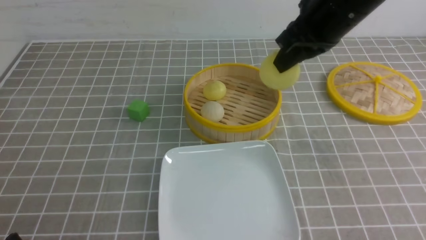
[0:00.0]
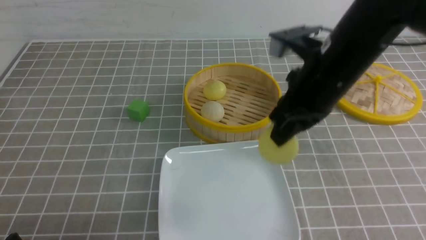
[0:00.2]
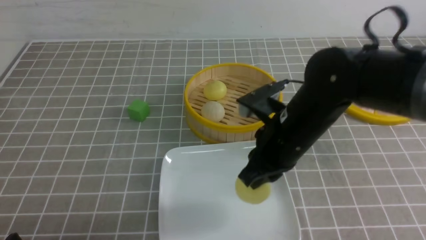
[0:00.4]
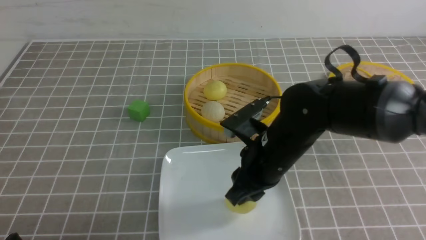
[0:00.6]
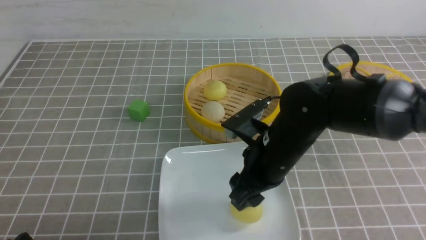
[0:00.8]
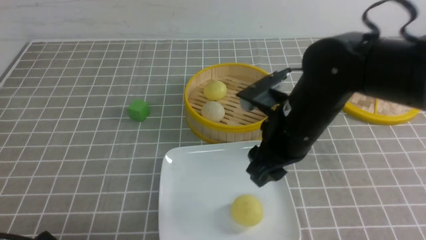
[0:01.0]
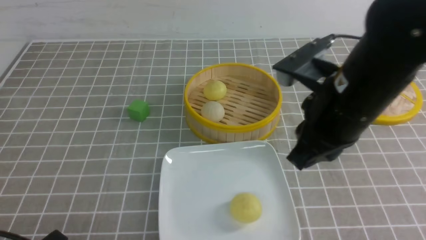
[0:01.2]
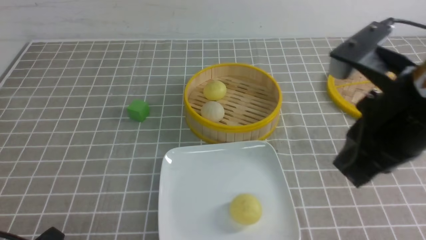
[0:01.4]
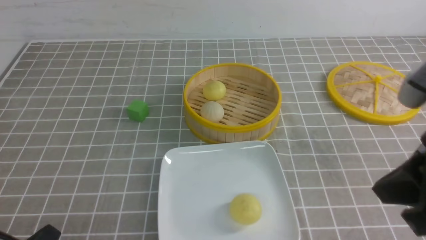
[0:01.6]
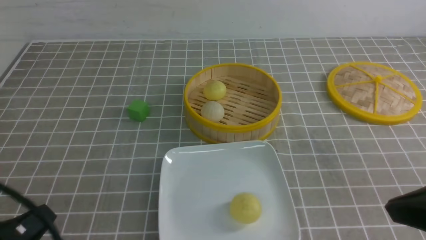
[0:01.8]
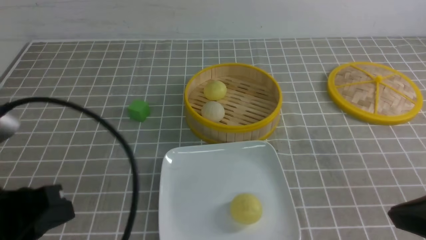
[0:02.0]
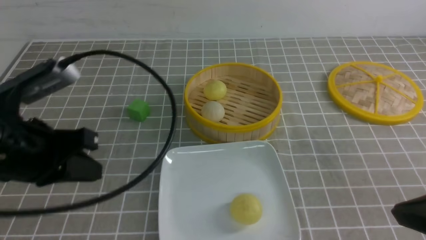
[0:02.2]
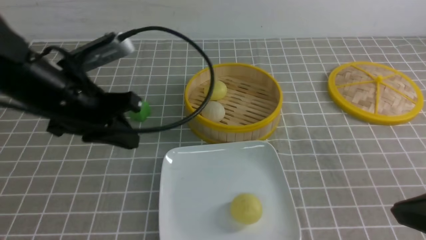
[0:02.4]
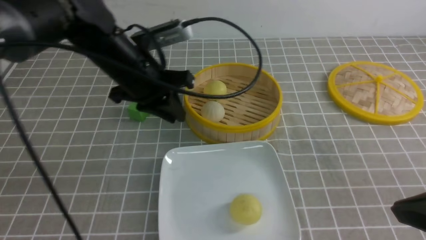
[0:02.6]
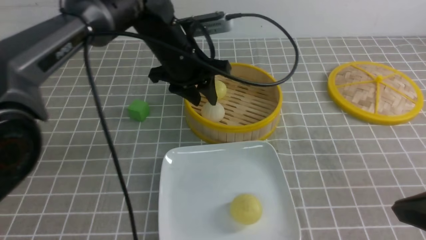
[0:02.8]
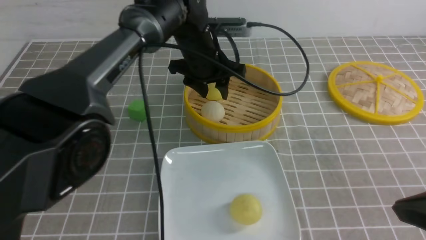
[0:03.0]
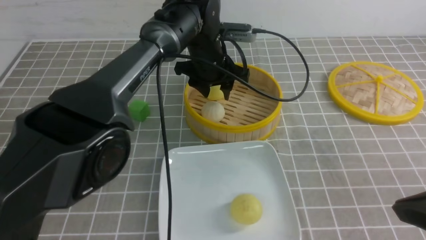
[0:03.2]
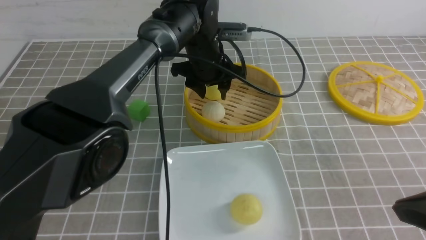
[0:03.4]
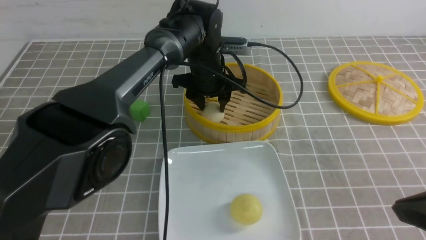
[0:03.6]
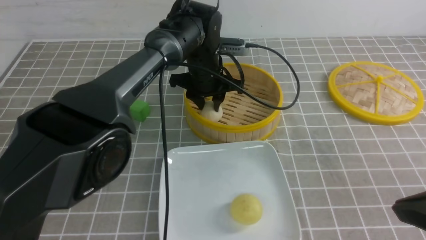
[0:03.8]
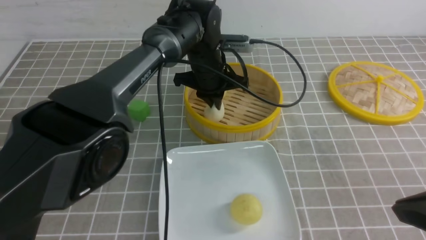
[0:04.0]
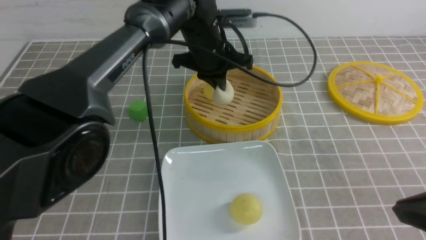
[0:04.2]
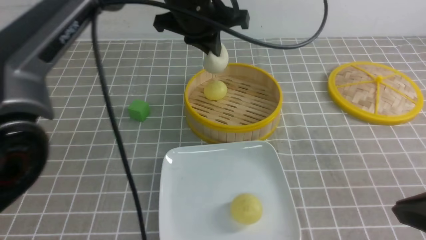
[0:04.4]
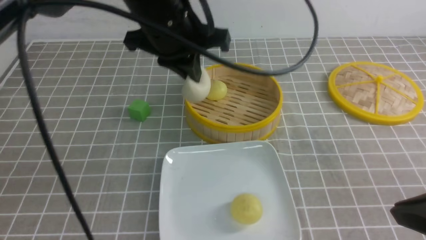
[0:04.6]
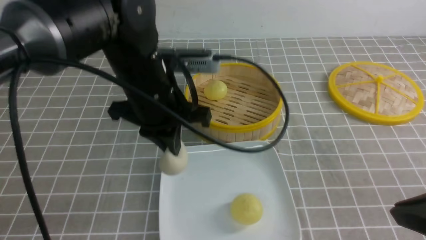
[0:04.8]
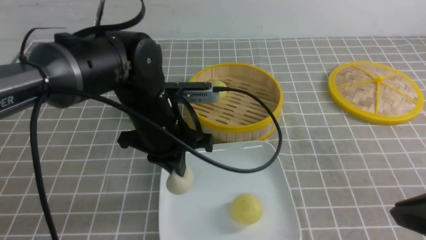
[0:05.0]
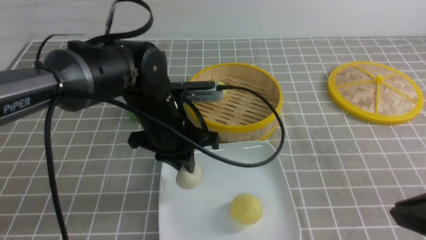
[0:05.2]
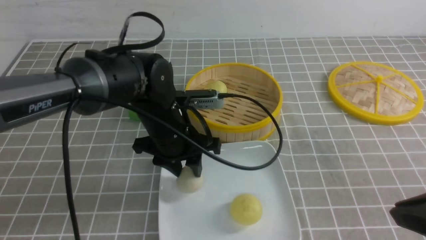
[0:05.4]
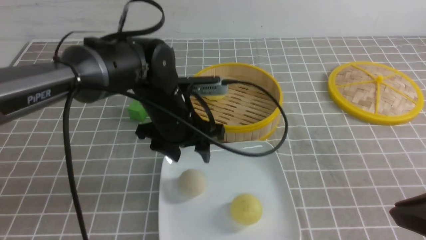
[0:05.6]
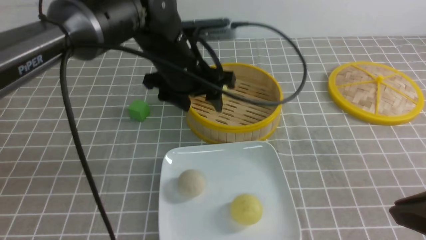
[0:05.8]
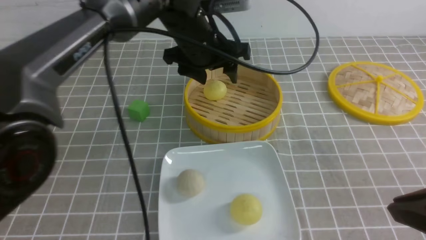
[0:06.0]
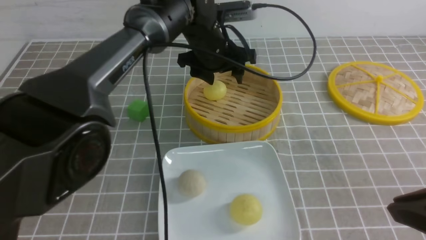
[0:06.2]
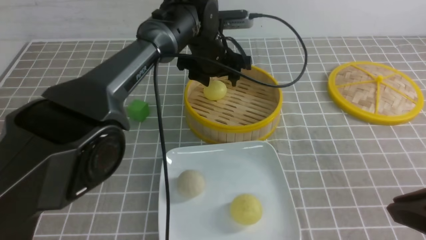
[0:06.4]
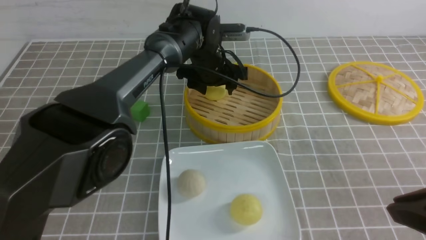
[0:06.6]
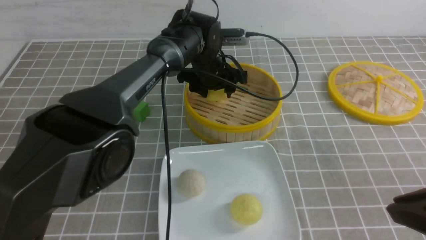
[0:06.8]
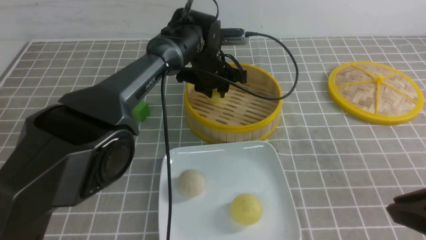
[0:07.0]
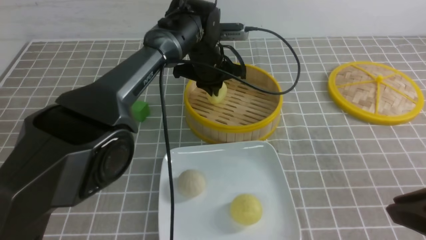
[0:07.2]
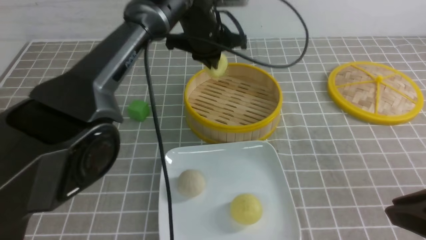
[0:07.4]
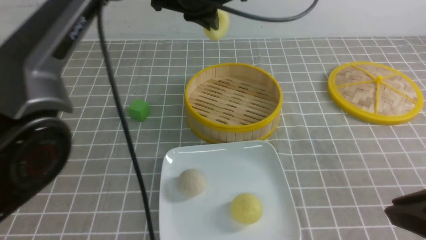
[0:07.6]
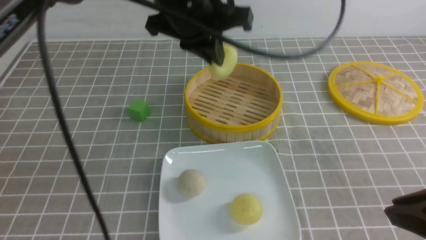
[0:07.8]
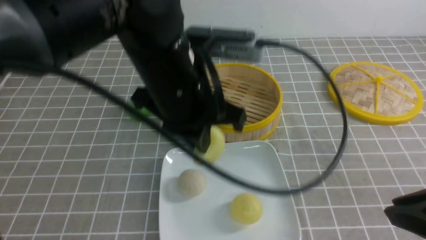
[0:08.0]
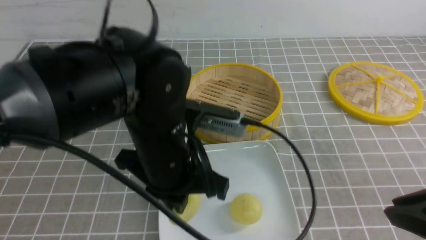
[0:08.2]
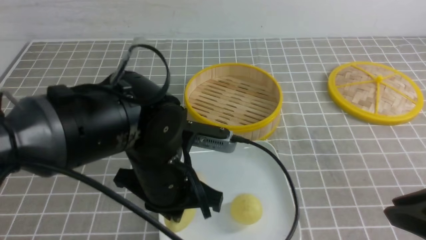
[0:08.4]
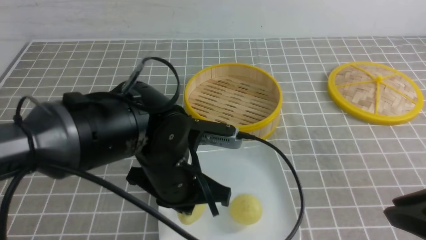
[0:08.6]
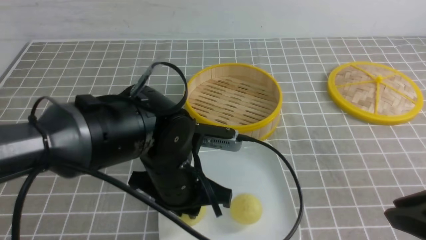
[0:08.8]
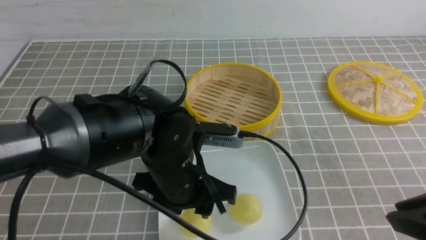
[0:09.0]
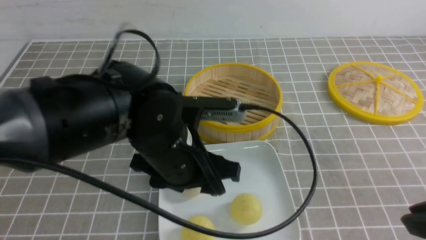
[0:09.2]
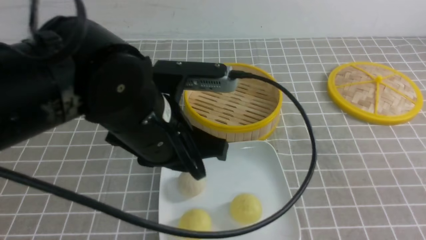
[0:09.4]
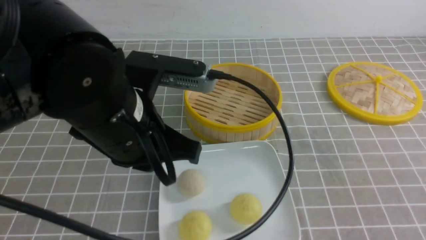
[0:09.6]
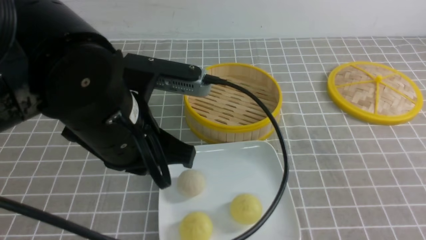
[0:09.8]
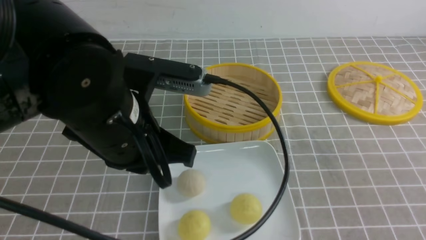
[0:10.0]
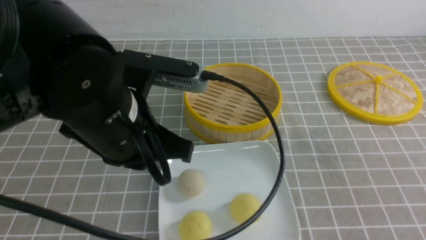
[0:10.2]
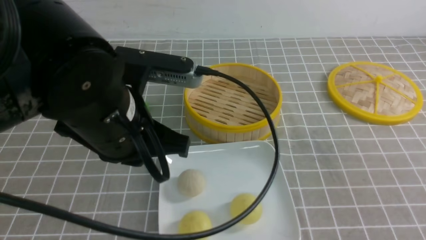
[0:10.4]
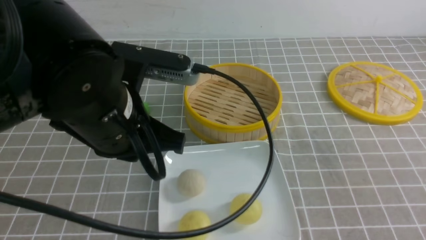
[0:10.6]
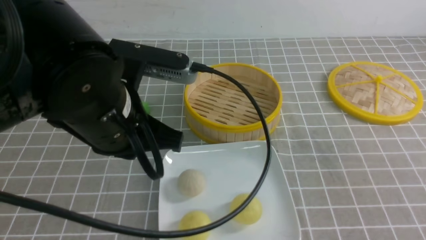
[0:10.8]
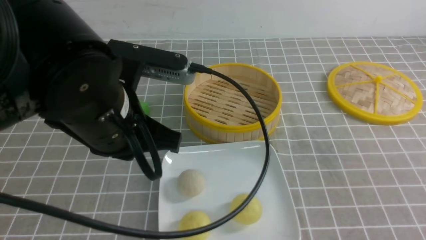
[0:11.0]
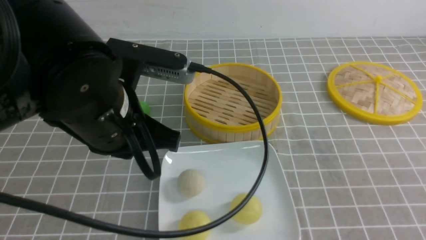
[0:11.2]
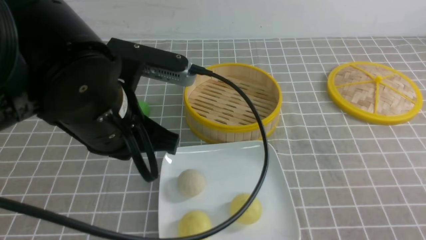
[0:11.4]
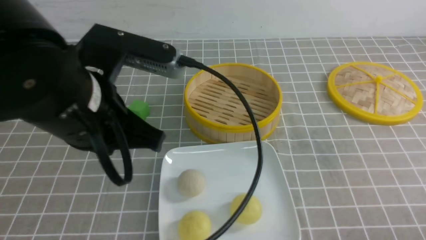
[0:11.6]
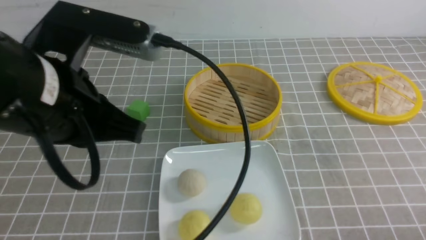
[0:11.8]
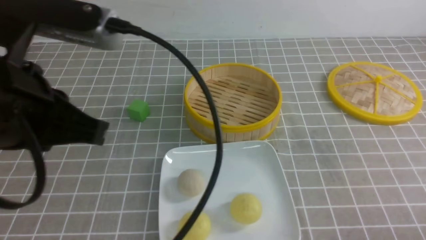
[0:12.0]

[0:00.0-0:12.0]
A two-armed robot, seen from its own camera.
Step, 0:00.0 to 0:00.8: use the right arm to put the steamed stuffed bun into the plate.
Step, 0:01.0 to 0:04.0: use the left arm to grab the steamed stuffed bun that is closest to it.
Step, 0:04.2 to 0:05.4: use the left arm to put the steamed stuffed bun into the plate.
Step, 0:05.6 to 0:07.2: use the left arm to grab the steamed stuffed bun that is closest to it.
Step, 0:07.4 to 0:09.0: use the left arm to put the steamed stuffed bun into the plate.
0:00.0 to 0:01.6: The right gripper is displaced backward by approximately 20 cm, and opens, then closes again.
0:01.6 to 0:03.0: The right gripper changes place by about 5 cm; the left gripper goes some 40 cm forward and to the right, and opens up.
0:03.0 to 0:04.4: The left gripper is displaced upward and backward by roughly 10 cm, and closes its fingers.
0:04.4 to 0:06.0: The left gripper is displaced downward by some 5 cm, and opens up.
0:06.0 to 0:07.6: The left gripper moves upward, some 10 cm, and closes its fingers.
0:07.6 to 0:09.0: The left gripper moves backward and downward, roughly 20 cm, and opens.
0:09.0 to 0:10.4: The left gripper heads upward and to the left, covering approximately 10 cm, and closes up, while the right gripper shifts by some 5 cm, and closes its fingers.
0:10.4 to 0:12.0: The left gripper heads upward, to the left and backward, covering approximately 10 cm. The right gripper travels downward by approximately 10 cm.

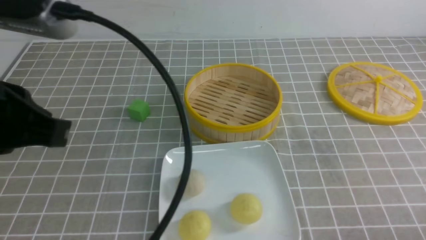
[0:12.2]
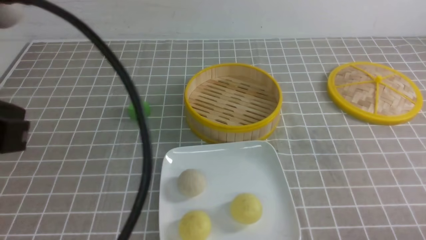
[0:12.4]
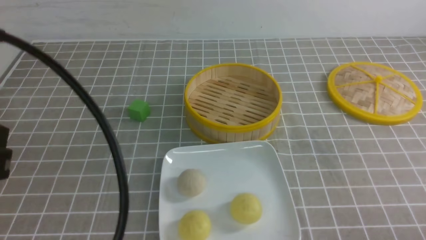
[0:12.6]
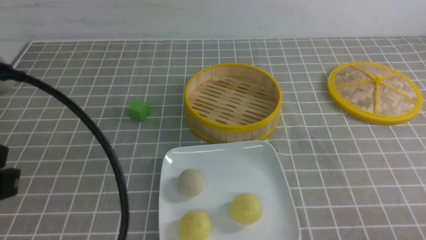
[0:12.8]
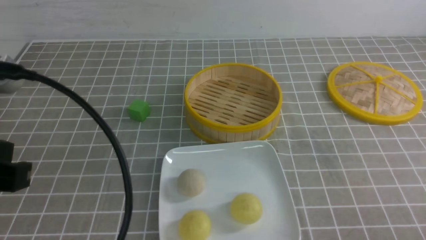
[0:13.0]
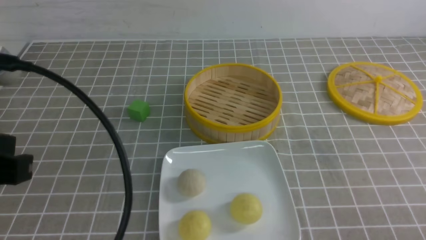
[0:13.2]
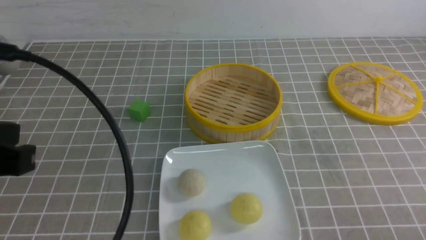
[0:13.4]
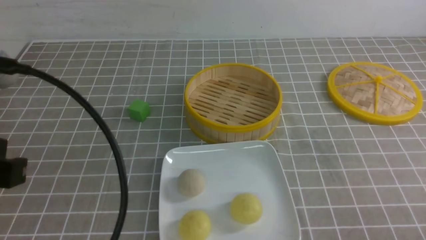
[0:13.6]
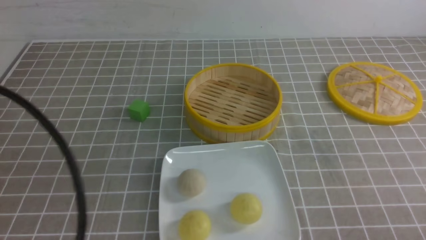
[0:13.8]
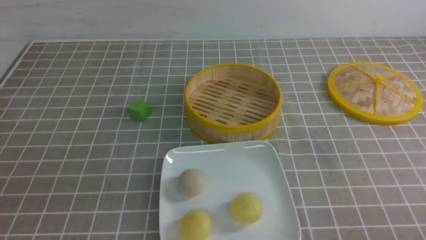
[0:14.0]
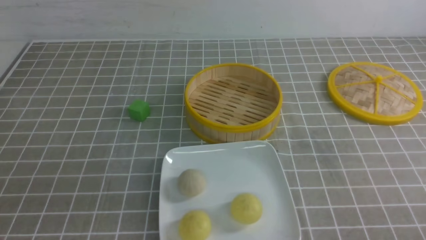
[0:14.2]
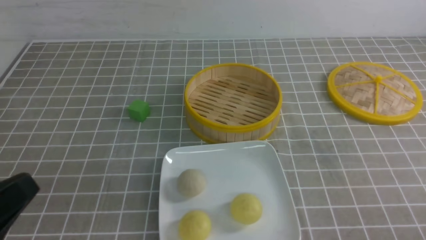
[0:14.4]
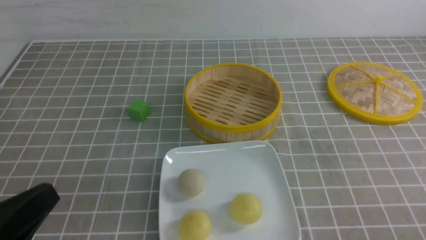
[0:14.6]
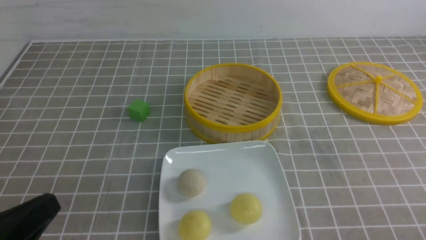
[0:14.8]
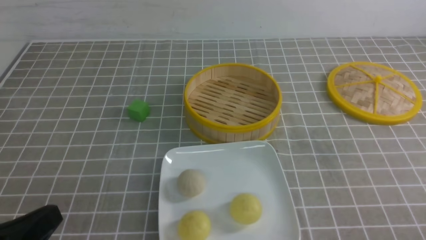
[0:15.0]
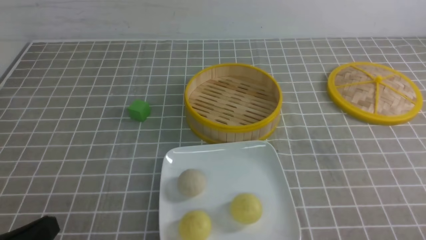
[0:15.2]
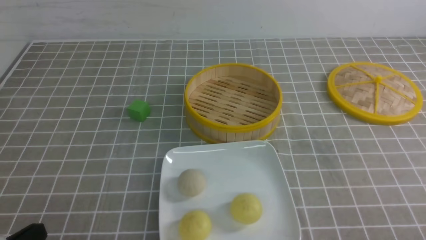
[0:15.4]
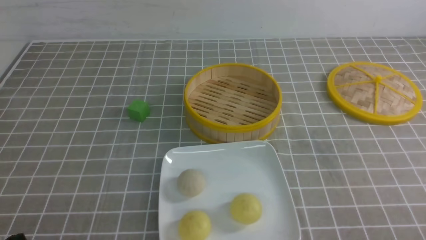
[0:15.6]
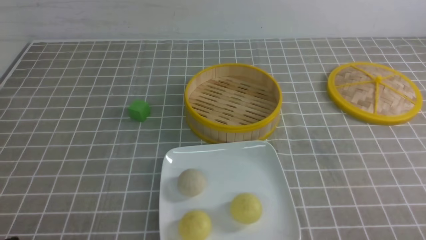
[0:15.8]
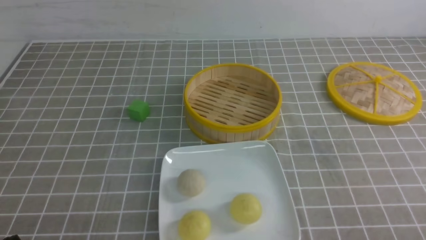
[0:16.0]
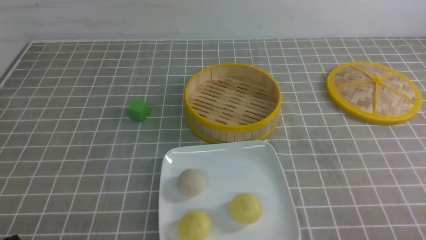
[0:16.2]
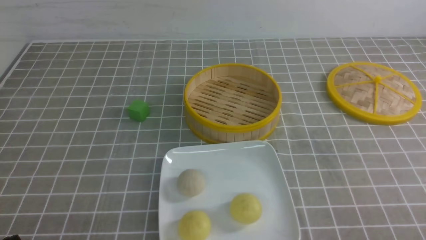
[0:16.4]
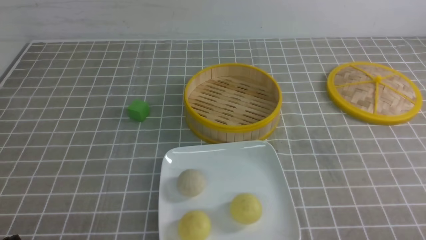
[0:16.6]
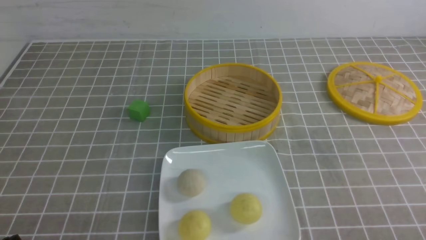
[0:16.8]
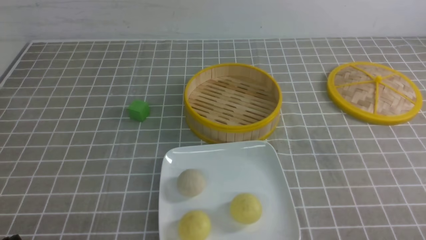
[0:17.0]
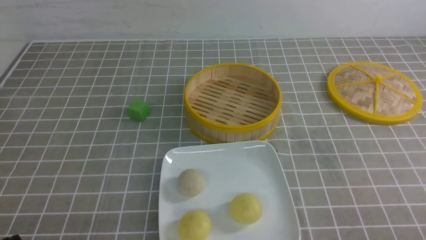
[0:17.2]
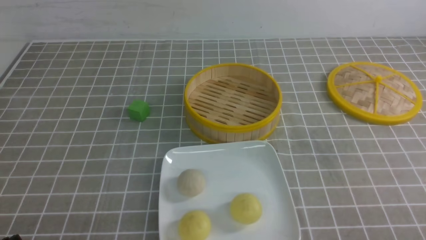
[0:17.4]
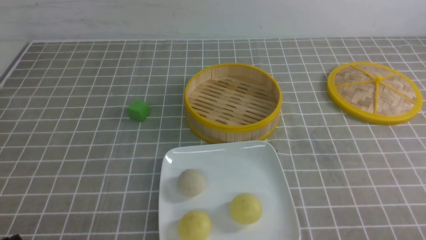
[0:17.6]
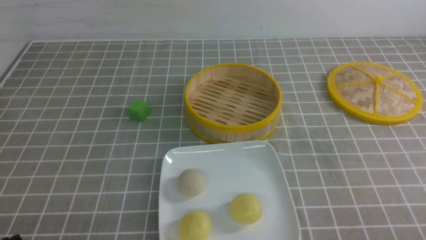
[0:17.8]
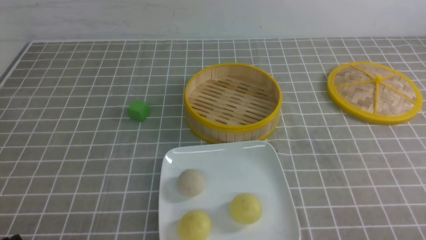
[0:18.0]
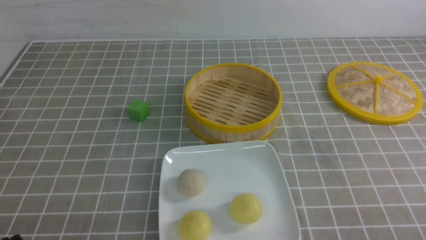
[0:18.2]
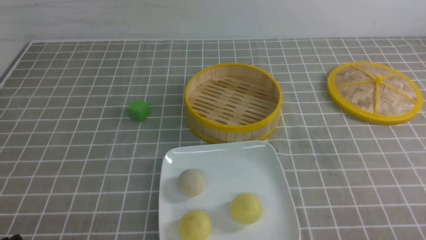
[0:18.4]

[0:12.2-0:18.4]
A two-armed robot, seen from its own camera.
0:12.2 to 0:13.8: The left gripper shifts some 10 cm to the left and backward.
0:13.8 to 0:15.4: The left gripper is displaced downward by some 15 cm.
0:16.8 to 0:18.4: Both grippers stay put.
